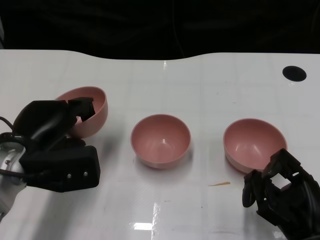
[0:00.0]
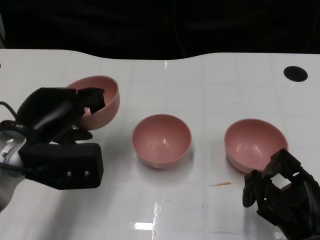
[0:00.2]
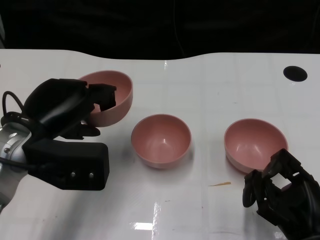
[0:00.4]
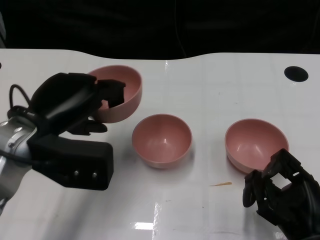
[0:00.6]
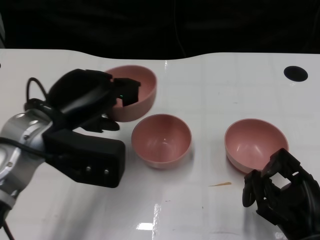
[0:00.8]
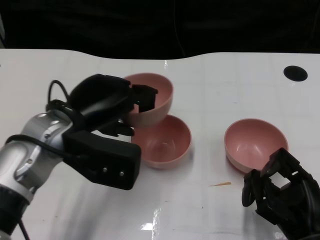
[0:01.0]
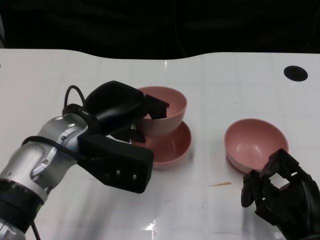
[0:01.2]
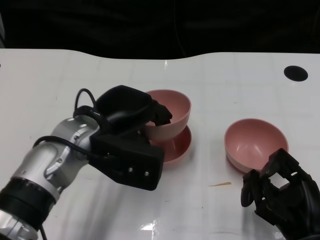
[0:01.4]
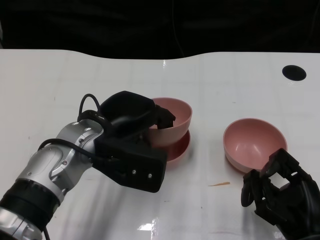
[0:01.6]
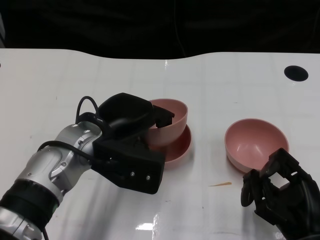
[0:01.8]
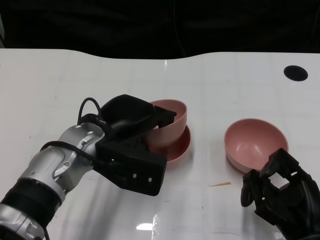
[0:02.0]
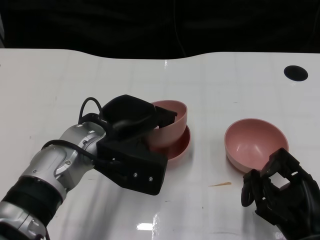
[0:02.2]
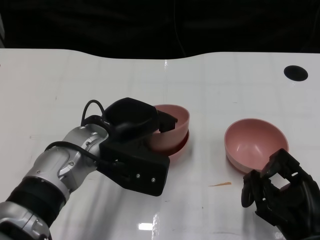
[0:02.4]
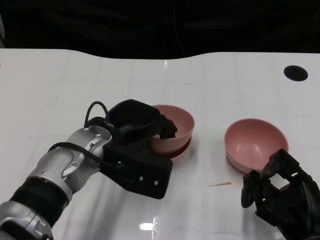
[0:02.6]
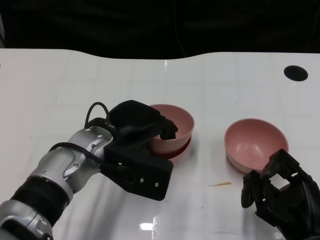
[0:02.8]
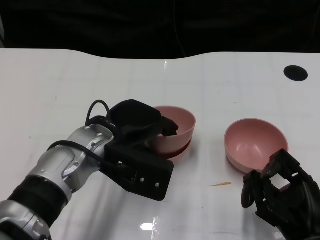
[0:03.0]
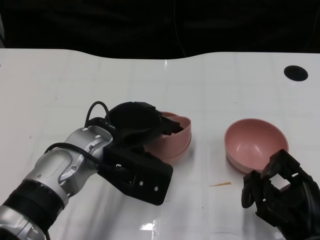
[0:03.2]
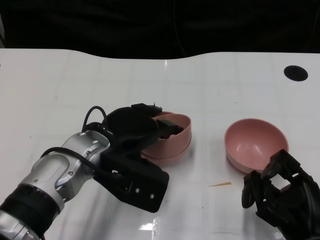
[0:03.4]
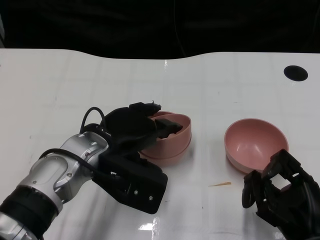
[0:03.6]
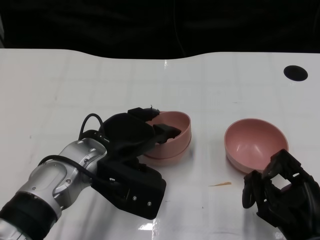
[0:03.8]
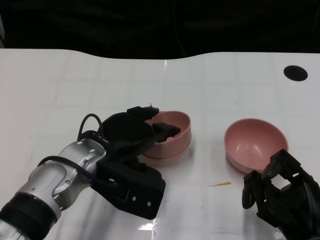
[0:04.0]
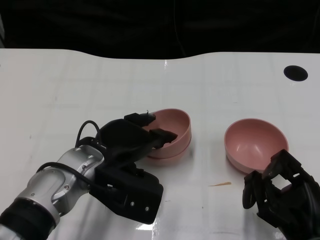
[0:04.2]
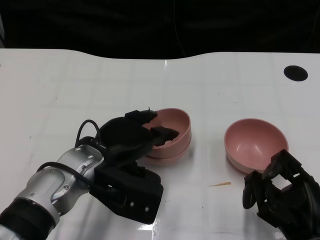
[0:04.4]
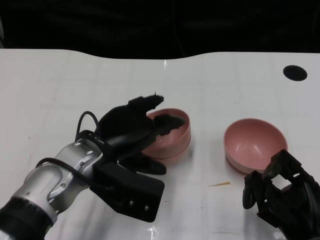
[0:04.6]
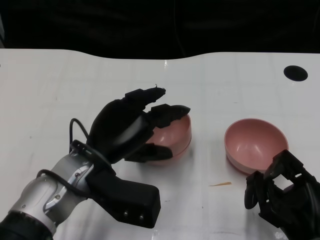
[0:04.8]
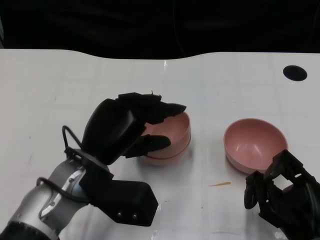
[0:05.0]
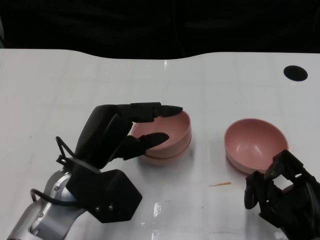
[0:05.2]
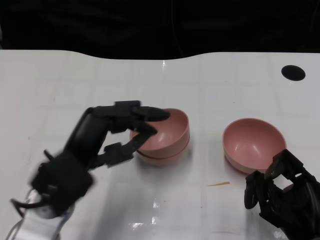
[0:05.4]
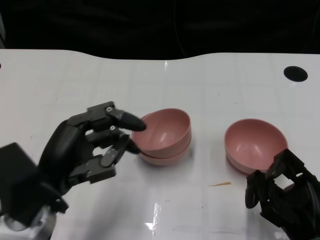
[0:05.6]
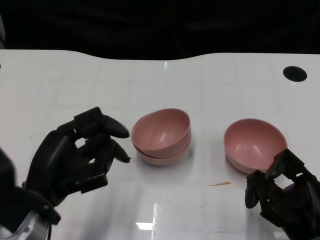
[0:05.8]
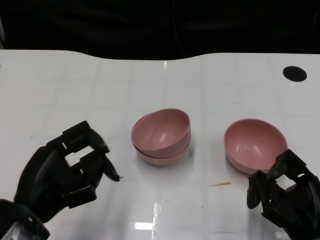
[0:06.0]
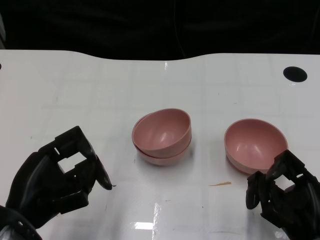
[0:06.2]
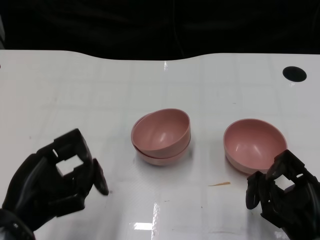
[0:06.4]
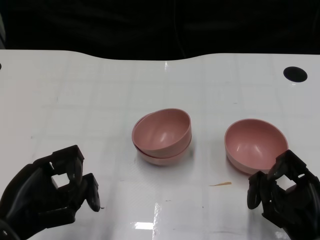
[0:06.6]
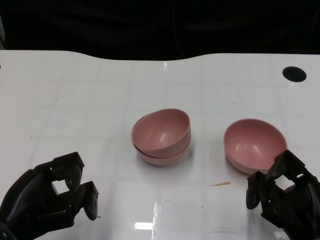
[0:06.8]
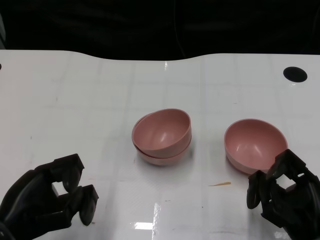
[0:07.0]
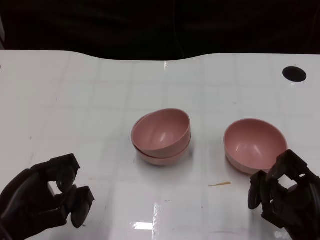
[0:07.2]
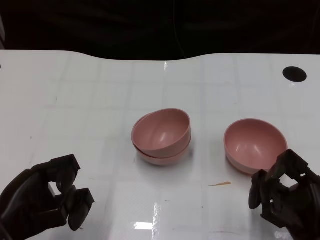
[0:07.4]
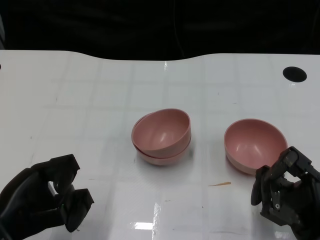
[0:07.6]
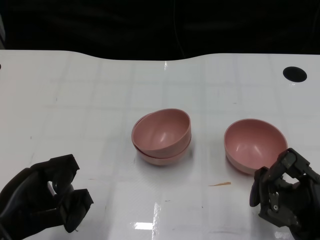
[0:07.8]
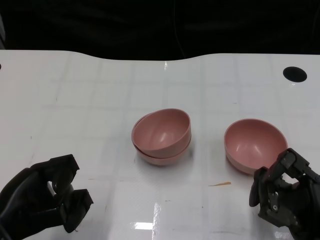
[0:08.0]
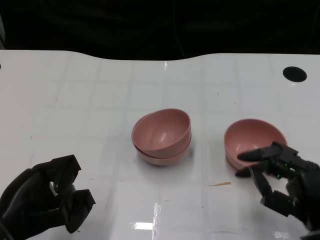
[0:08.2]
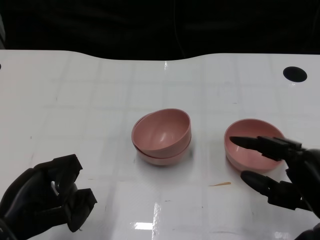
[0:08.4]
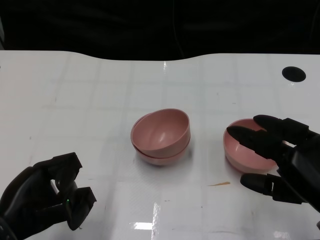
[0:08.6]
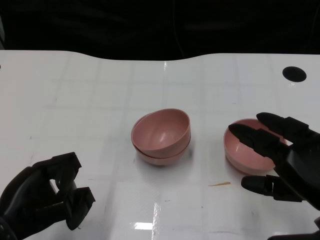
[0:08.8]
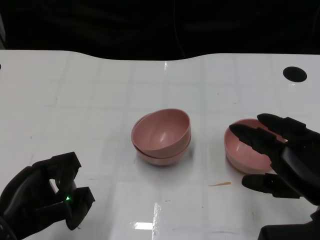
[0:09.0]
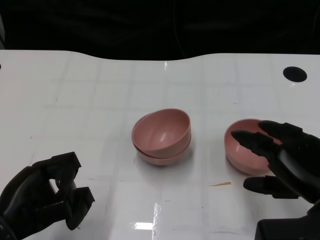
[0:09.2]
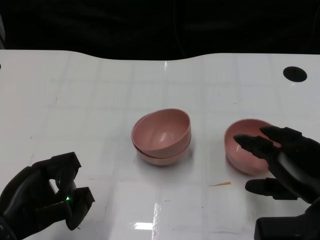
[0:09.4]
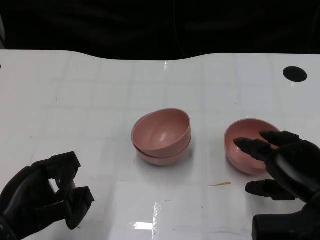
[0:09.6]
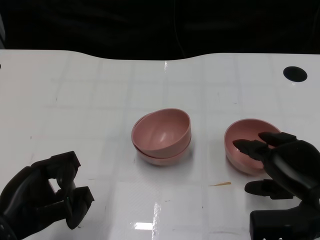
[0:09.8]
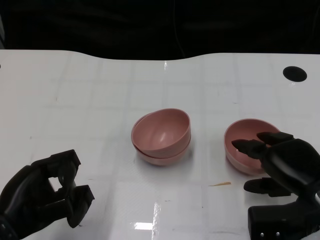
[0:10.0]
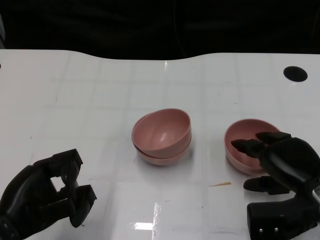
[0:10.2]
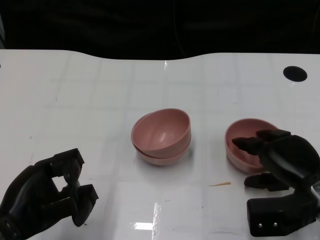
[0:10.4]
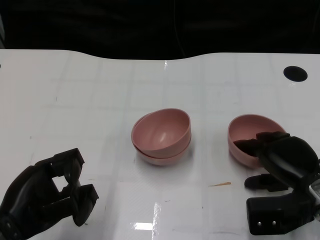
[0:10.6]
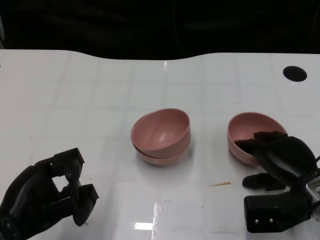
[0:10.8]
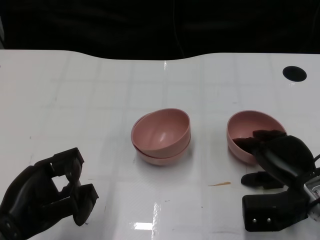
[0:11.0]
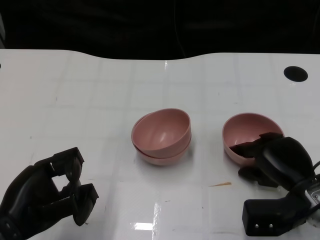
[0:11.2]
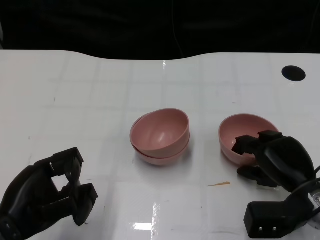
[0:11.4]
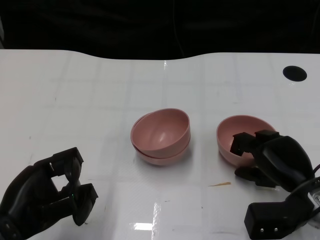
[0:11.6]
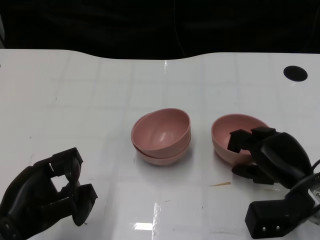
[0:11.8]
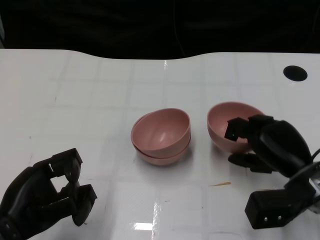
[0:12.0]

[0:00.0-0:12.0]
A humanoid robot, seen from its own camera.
Task of the whole recording: Pick up the bowl on one side of the table and place it on top of the middle bowl, then pick up the bowl on the other side of the table and place it on top of the middle bowls.
Step, 0:00.0 to 0:04.4: Place the bowl on the left onto the bowl in the middle with left gripper.
Step, 0:04.6 to 0:12.0: Grasp the bowl on the right with the right gripper.
0:00.0 to 0:01.6: The left hand is displaced to the right by some 10 cm.
0:01.6 to 0:04.4: The hands make only small movements.
0:04.4 to 0:06.0: The left hand travels backward and to the left by some 15 cm.
0:06.0 to 0:07.6: The hands make only small movements.
0:07.6 to 0:09.0: The right hand moves upward, approximately 10 cm.
0:09.0 to 0:10.4: The right hand travels downward and forward by approximately 10 cm.

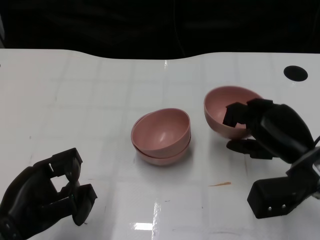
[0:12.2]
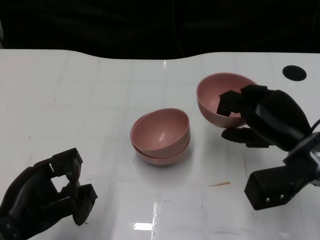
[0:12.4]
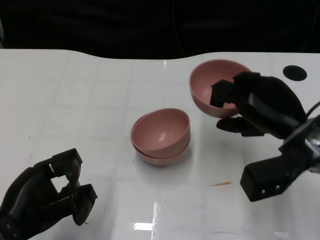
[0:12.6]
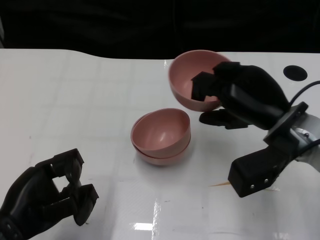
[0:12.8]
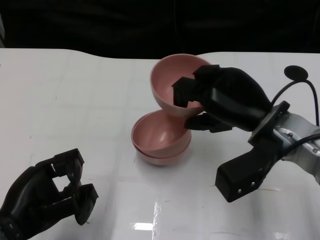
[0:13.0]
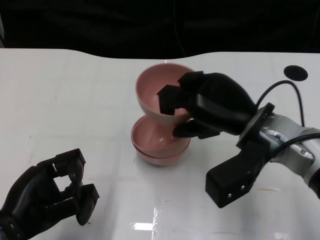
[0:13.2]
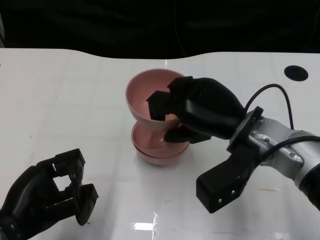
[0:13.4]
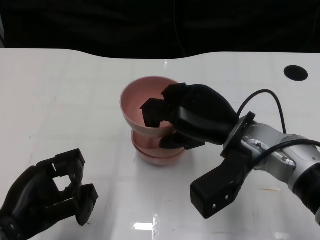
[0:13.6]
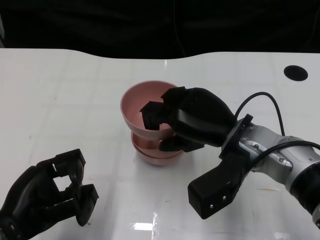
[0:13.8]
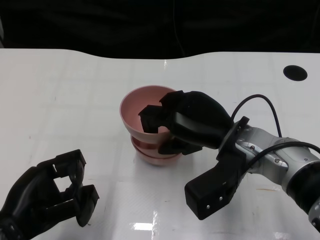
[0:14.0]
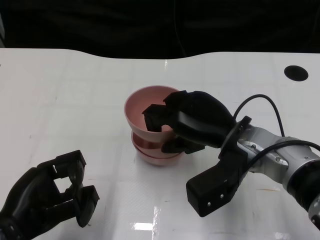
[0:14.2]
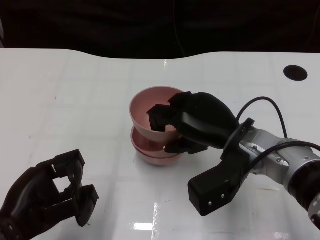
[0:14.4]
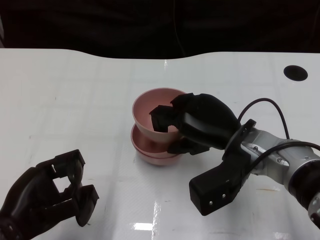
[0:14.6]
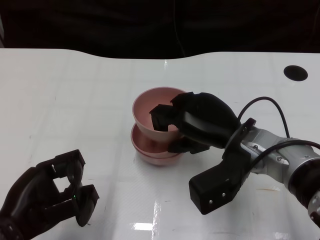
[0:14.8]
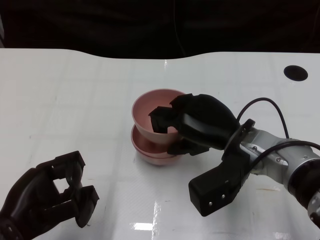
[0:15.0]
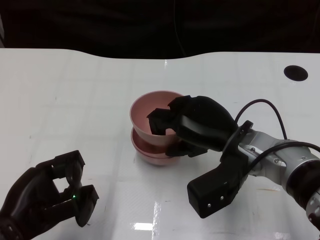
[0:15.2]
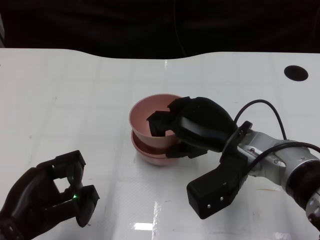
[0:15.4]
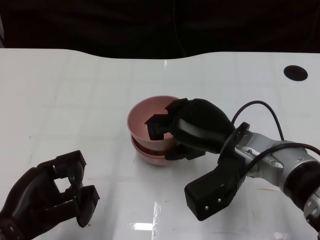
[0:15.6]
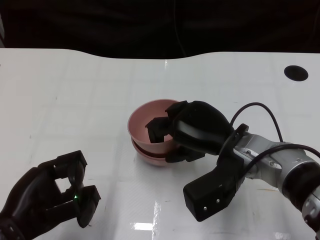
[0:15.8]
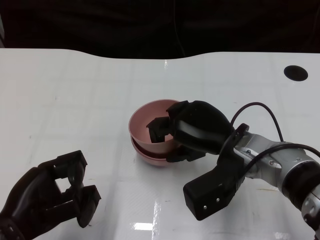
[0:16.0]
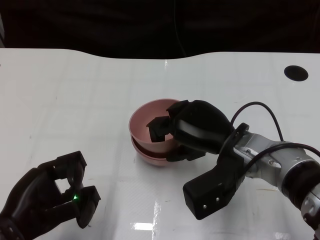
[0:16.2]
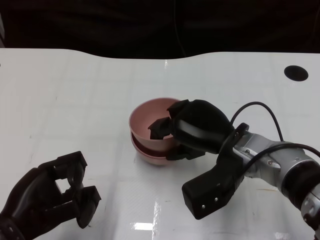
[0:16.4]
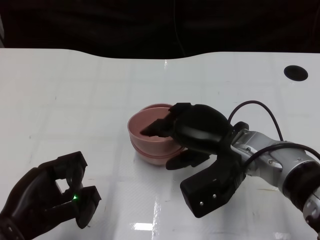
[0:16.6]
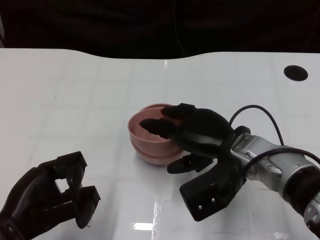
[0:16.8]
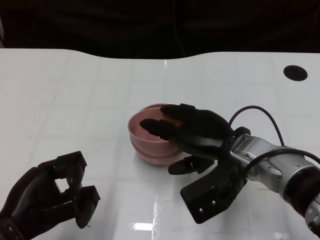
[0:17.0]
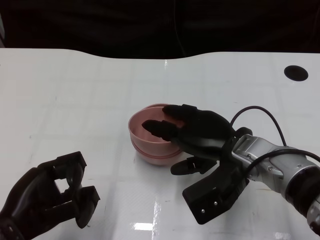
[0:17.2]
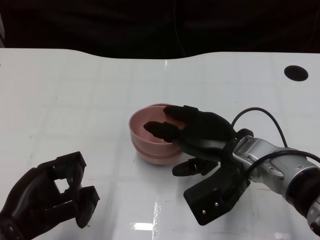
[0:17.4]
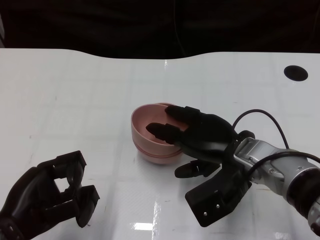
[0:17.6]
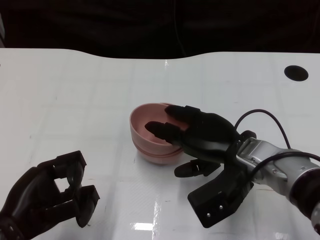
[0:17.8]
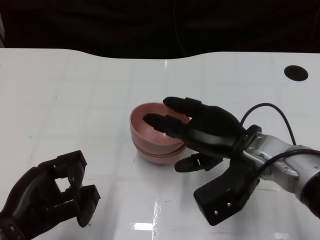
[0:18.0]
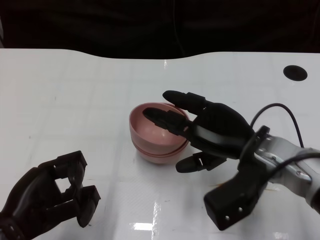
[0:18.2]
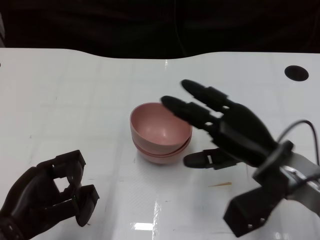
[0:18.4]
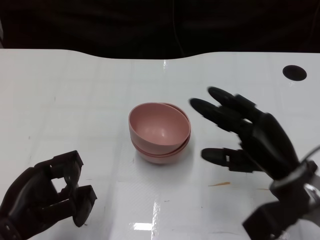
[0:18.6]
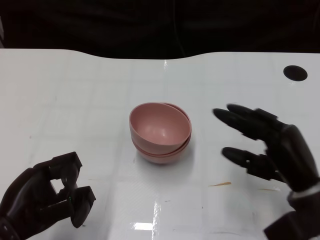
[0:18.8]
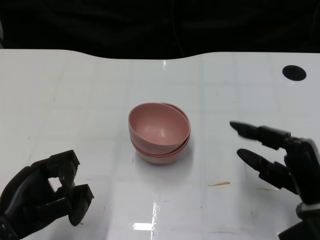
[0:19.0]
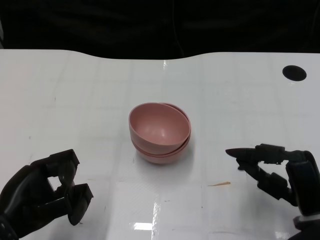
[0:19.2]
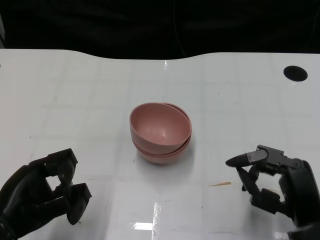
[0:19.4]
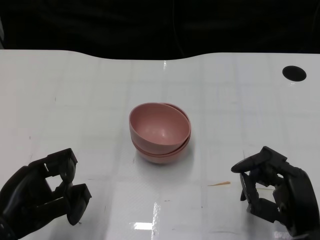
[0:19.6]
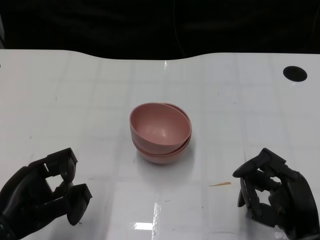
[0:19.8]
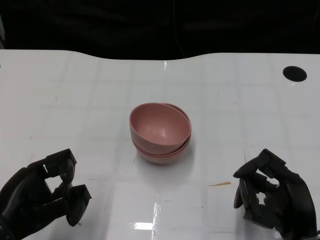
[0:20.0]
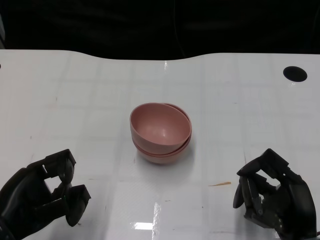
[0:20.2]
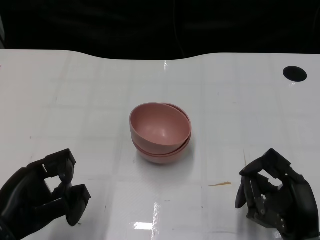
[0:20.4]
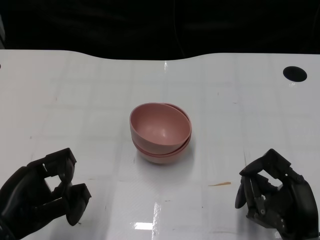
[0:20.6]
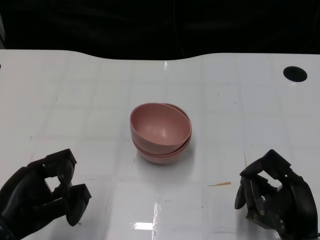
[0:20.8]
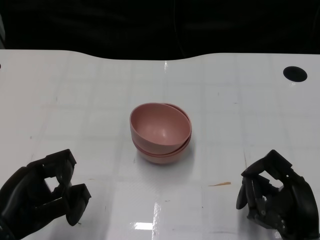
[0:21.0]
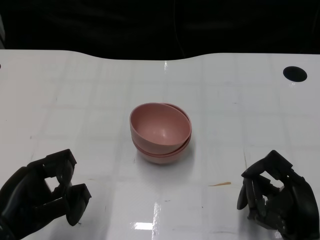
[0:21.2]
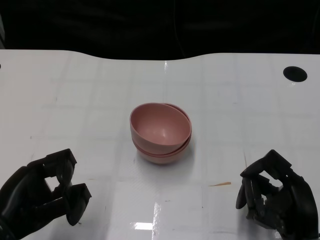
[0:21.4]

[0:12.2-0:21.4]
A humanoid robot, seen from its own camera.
Task of the whole recording: Pick up the bowl on one side of the table and place it on top of the middle bowl, then pick up the bowl on the other side of the table and place it on top of the middle bowls.
Step, 0:12.2 to 0:18.0: Place the bowl on the right onto the bowl in the middle with right gripper.
0:12.2 to 0:13.8: The right hand travels to the left by roughly 10 cm.
0:13.8 to 0:15.2: The hands move only a little.
0:15.2 to 0:16.8: The hands move only a little.
0:16.8 to 0:18.4: The right hand ends up about 5 cm from where it was.
0:18.4 to 0:19.8: The right hand goes roughly 10 cm backward and downward.
0:19.8 to 0:21.4: The hands stay close to where they were, moving slightly.
